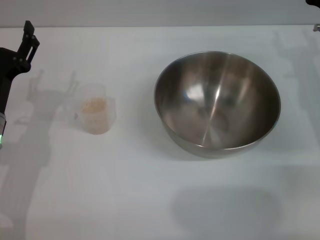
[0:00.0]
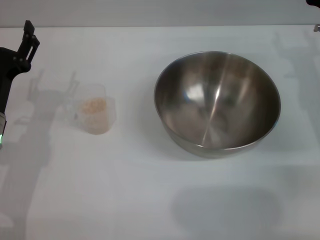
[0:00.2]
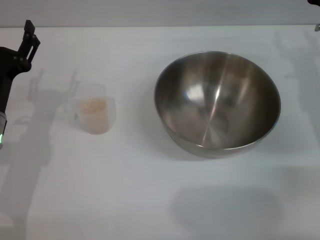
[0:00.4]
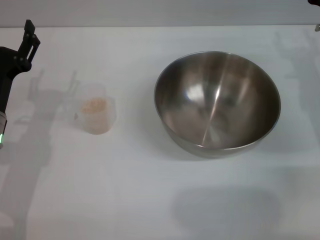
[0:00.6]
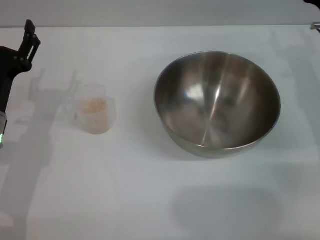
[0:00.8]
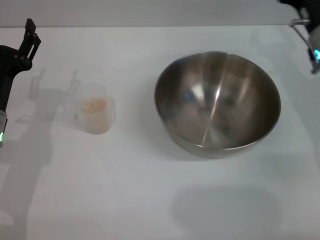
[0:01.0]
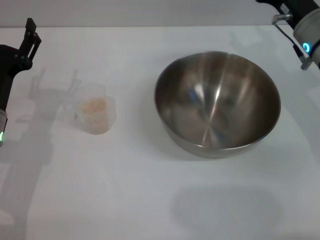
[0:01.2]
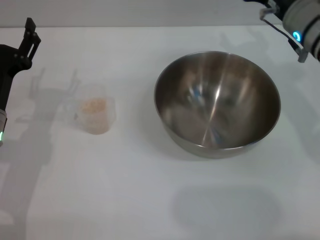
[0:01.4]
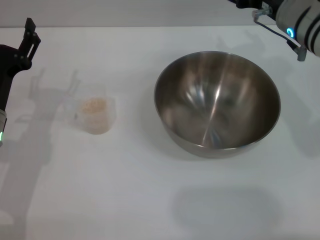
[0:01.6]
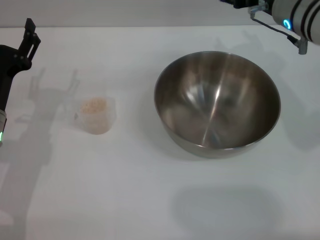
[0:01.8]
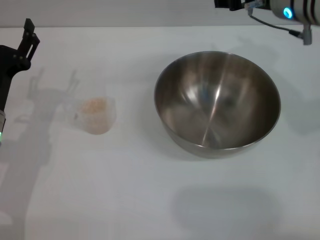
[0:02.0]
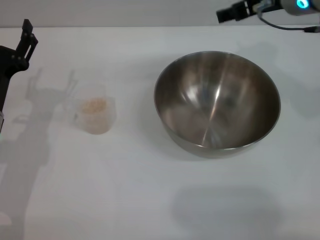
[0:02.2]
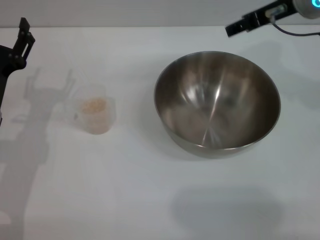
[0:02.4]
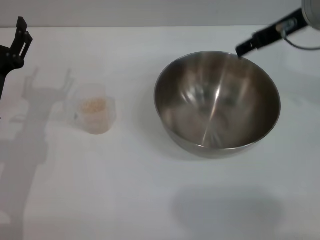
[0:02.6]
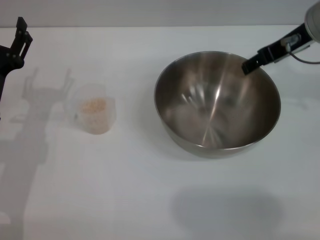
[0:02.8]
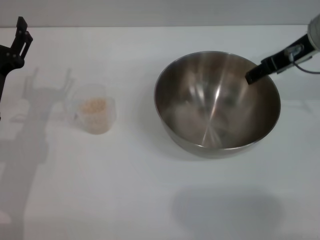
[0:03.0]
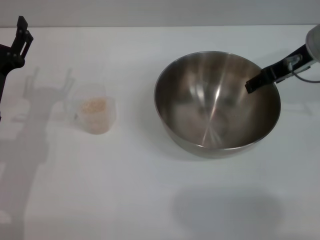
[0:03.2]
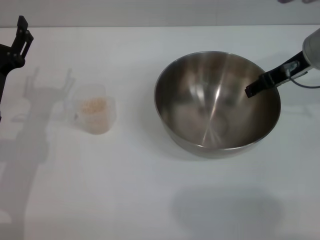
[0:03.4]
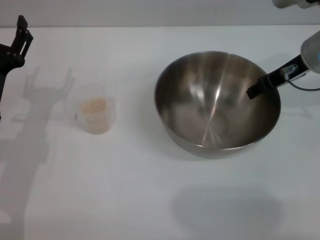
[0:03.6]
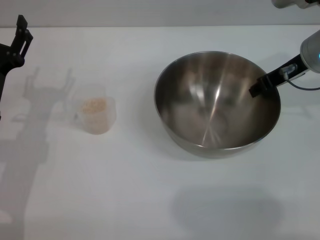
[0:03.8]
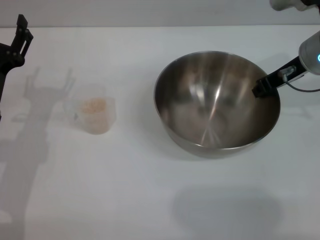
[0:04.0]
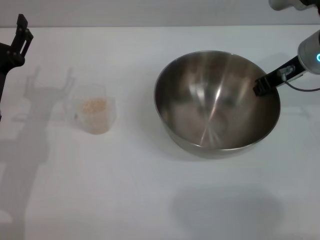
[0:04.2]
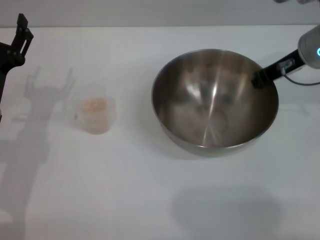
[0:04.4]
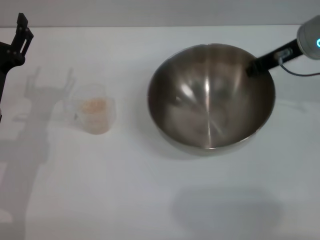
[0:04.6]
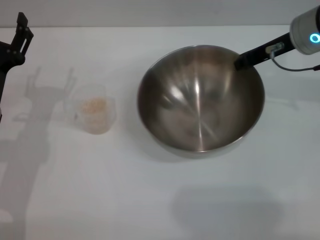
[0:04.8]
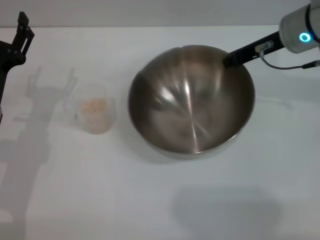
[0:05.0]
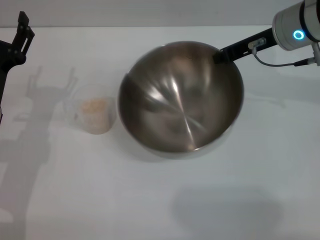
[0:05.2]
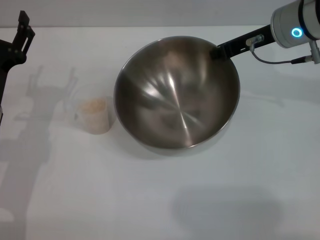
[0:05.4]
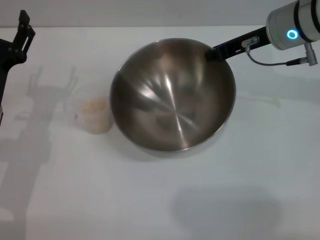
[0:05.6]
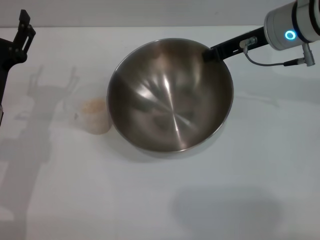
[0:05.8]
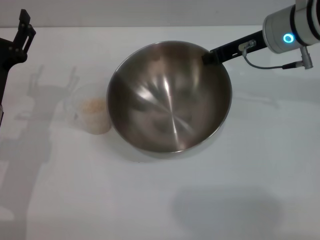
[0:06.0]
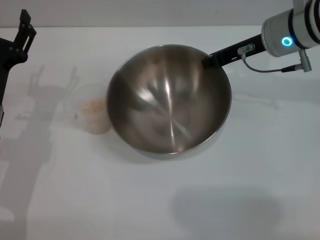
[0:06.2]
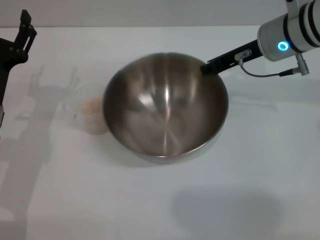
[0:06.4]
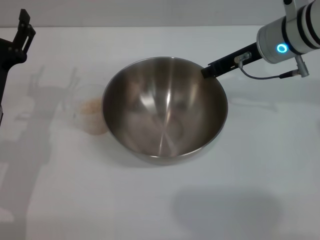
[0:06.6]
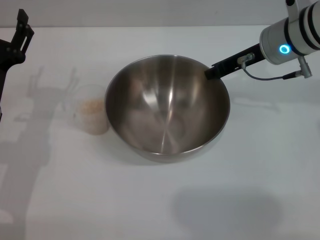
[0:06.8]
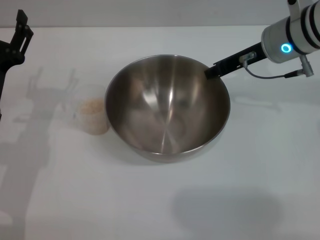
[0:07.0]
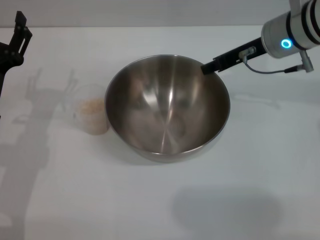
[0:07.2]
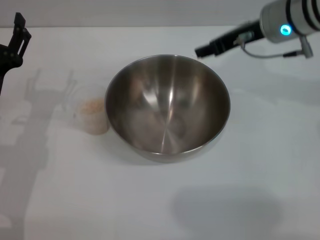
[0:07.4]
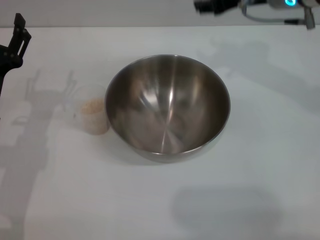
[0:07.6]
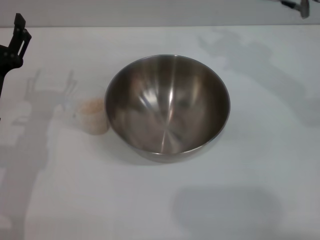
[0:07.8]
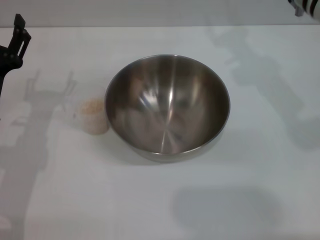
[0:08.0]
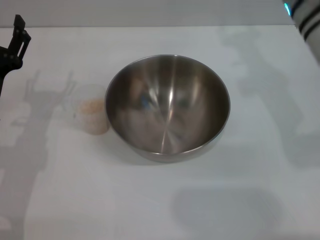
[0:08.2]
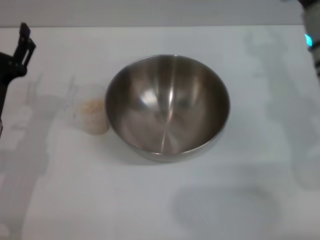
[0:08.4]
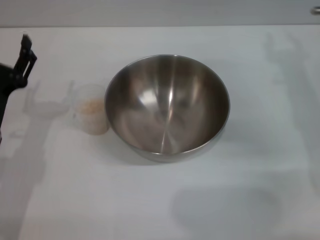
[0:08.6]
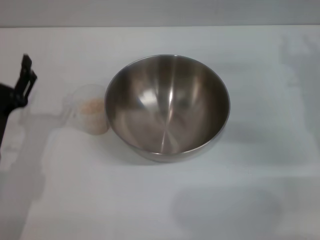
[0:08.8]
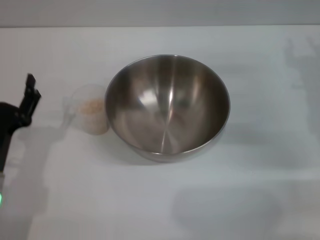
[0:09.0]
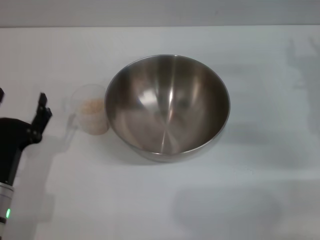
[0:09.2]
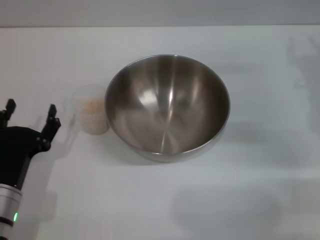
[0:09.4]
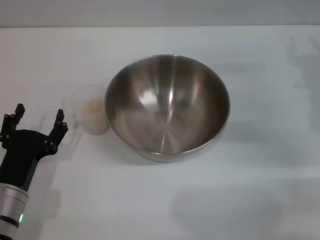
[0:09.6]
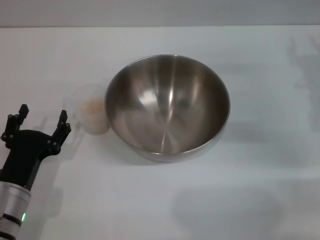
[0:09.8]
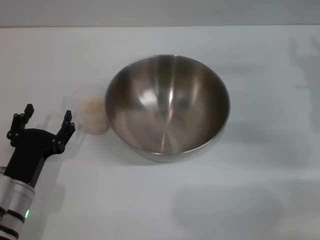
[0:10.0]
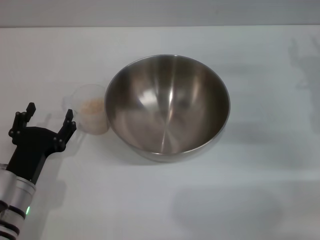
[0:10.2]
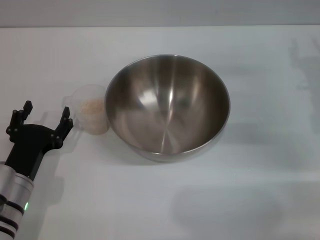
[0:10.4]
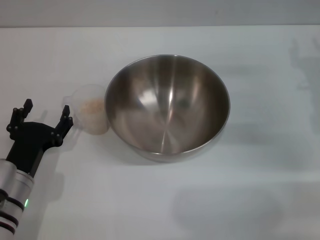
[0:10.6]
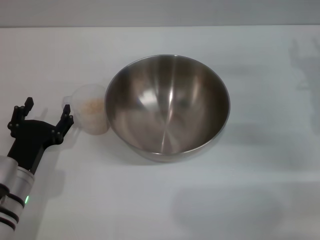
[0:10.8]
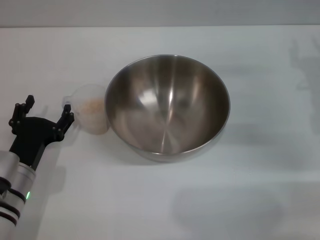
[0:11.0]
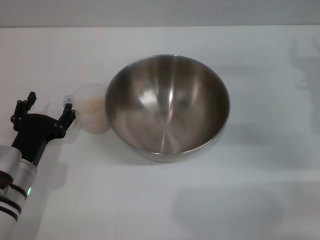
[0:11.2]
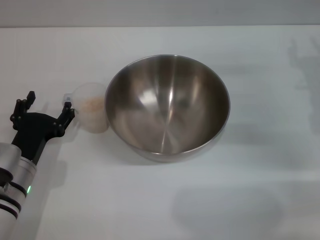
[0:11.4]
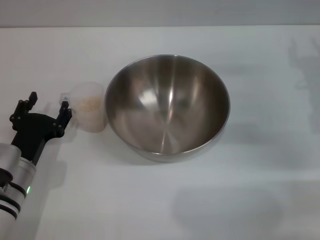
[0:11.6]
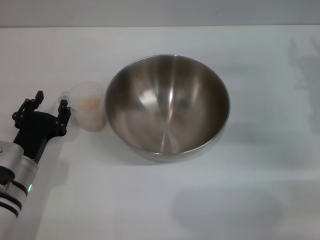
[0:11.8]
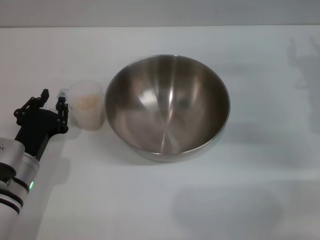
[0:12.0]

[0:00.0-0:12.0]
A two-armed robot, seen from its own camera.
Task of the whole recording: Place the bowl in the middle of the table with one hand and pour the rice from the grain cup into it with the other hand.
Step, 0:00.0 to 0:05.0: Pick up the bowl with the right gripper.
Step, 0:05.2 to 0:07.4: Place the bowl in the center of view with the right gripper.
0:00.0 to 0:01.6: The right gripper moves to the left and upward, roughly 10 cm.
0:03.0 to 0:04.4: The right gripper closes up.
0:06.0 to 0:07.6: The right gripper goes roughly 5 cm upward, and opens.
0:07.6 to 0:09.0: The right gripper travels downward, to the right and backward by some 20 cm. The left gripper heads backward, covering about 5 cm.
0:09.0 to 0:10.4: The grippers make only small movements.
0:10.4 to 0:12.0: The left gripper closes up.

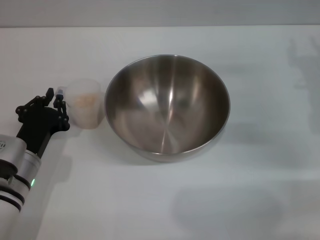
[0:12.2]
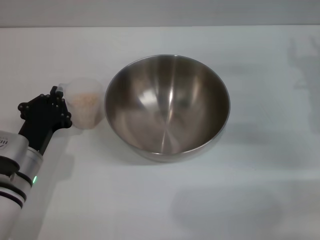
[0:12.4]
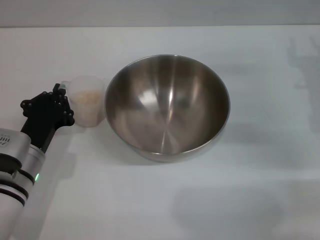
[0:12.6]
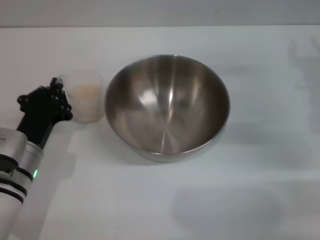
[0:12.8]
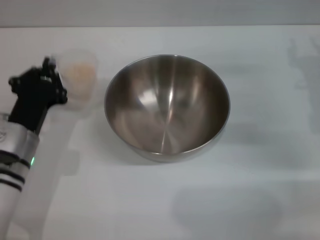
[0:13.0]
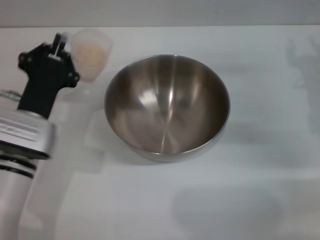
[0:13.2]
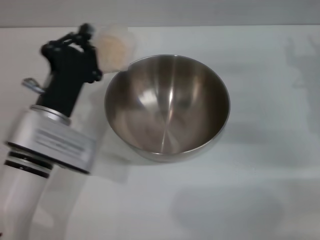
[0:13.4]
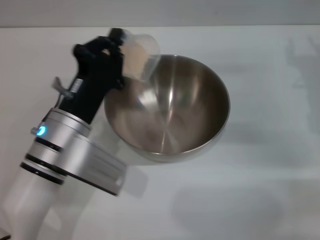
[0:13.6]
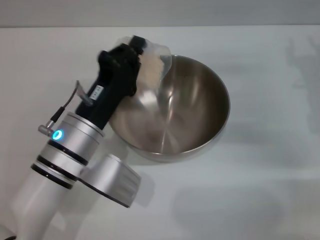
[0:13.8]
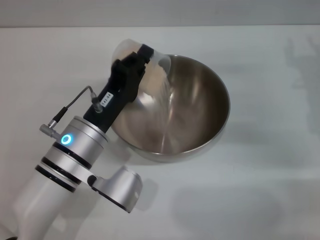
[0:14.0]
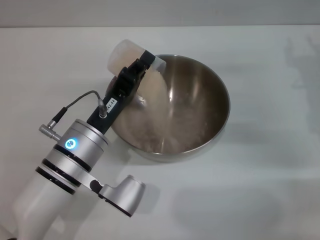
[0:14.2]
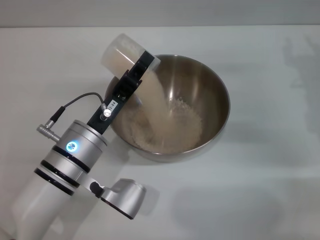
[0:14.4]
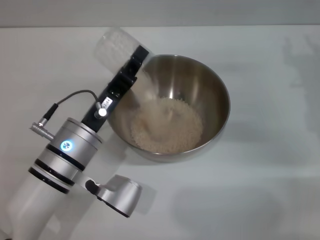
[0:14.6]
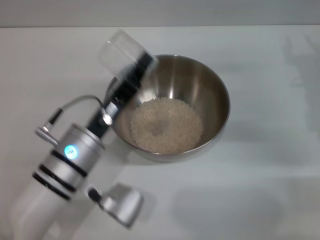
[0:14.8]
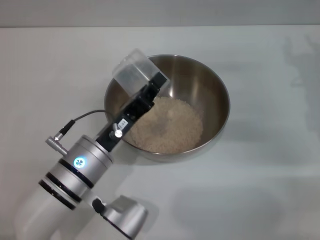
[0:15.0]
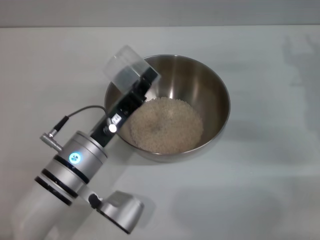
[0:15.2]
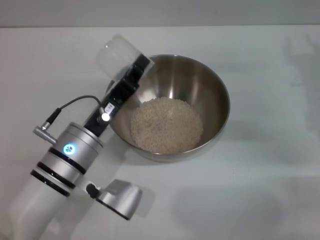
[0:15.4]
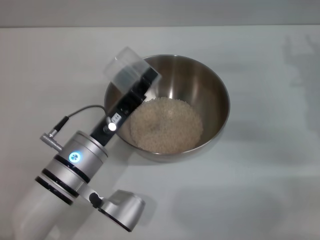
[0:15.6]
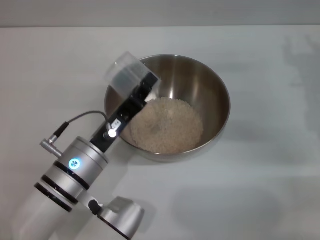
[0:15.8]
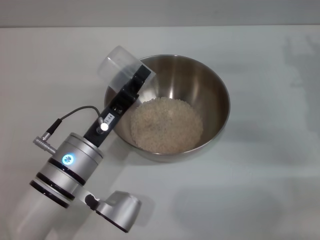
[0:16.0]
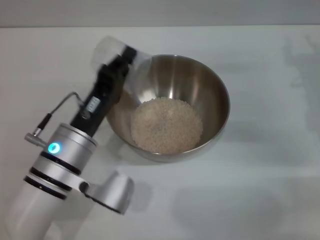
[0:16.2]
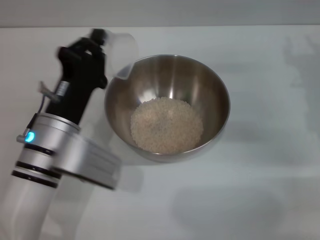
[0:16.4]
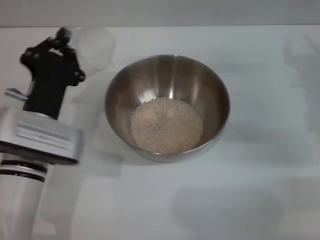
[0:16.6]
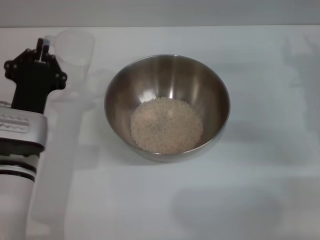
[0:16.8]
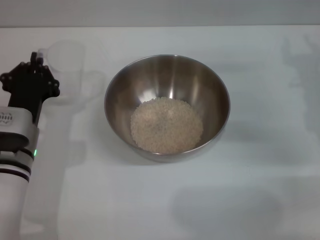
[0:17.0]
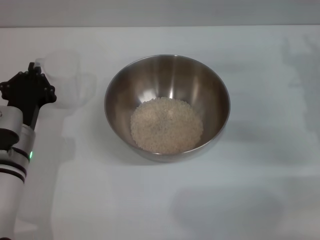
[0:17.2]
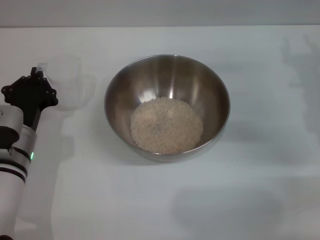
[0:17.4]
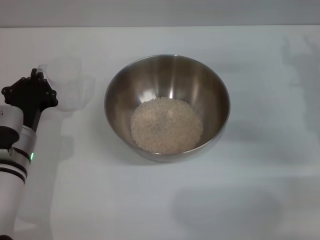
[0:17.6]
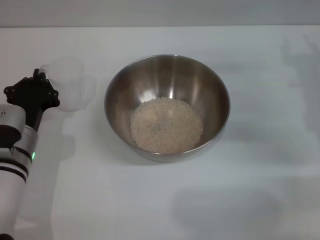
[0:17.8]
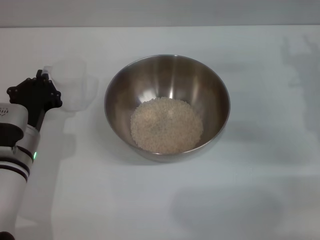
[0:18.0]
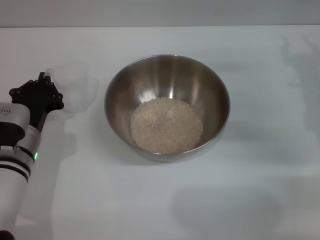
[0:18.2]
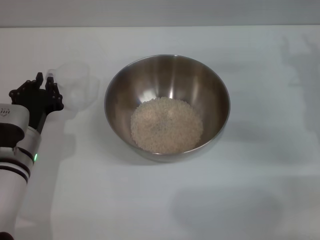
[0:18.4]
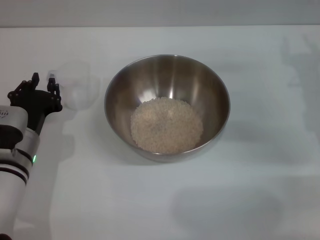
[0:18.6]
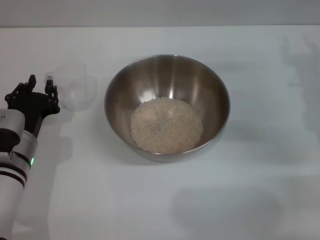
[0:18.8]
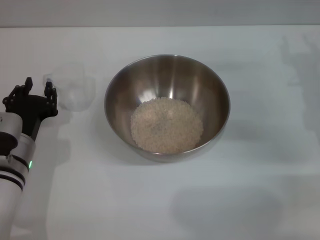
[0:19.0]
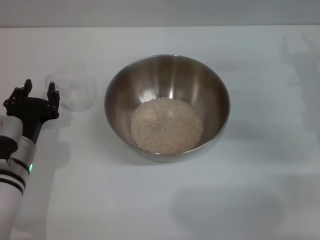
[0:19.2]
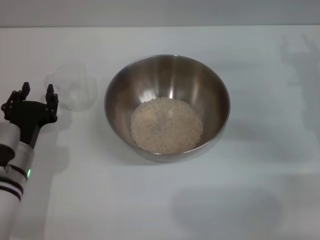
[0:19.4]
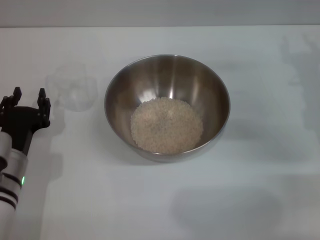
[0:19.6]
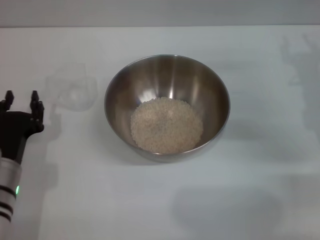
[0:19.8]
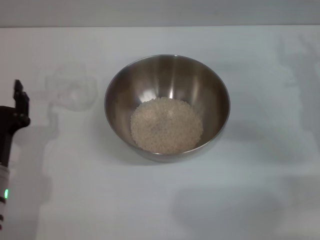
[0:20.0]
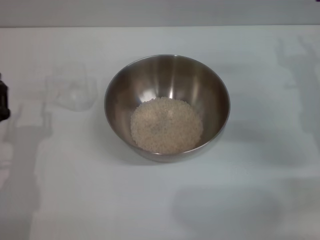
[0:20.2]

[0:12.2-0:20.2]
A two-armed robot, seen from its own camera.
Task of the whole recording: Place the bowl in the middle of the table with one hand and pour the rice from the grain cup into it with the other hand.
Step, 0:13.0 to 0:16.0: Pour the rice from the cup into the bowl with the left gripper.
Step, 0:16.2 to 0:19.6: Place the cup on the table with the left gripper.
0:12.2 to 0:13.8: The left gripper travels to the right and upward by roughly 10 cm, and closes.
0:15.4 to 0:17.0: The left gripper moves to the left, about 5 cm.
0:17.0 to 0:18.6: The grippers stay close to where they were, moving slightly.
0:18.6 to 0:20.2: The left gripper shifts roughly 10 cm backward, and opens up.
